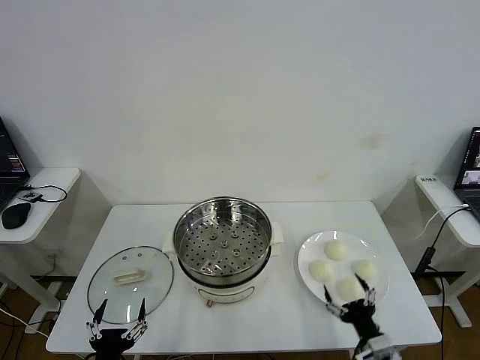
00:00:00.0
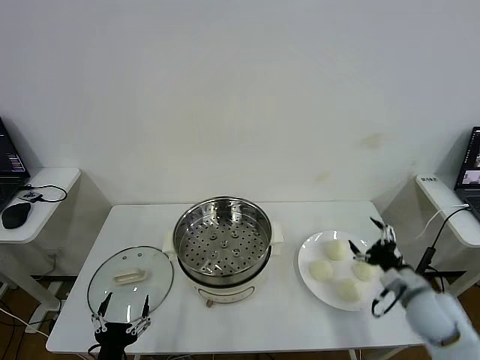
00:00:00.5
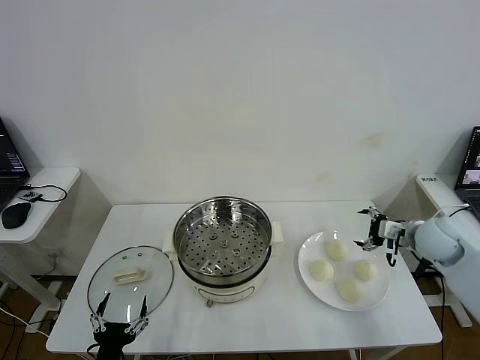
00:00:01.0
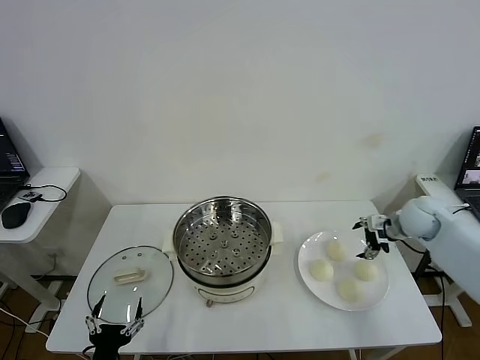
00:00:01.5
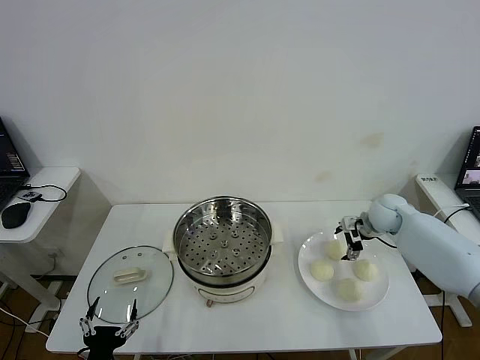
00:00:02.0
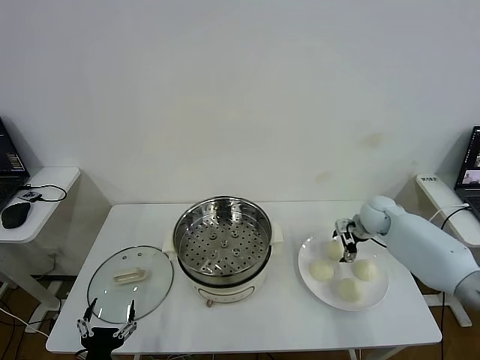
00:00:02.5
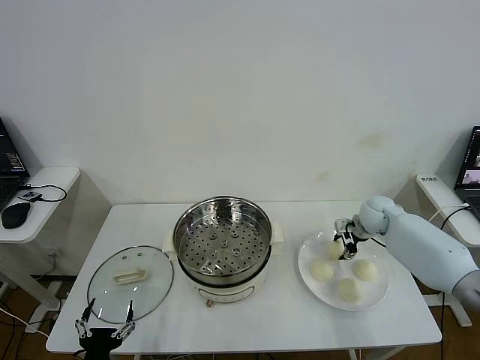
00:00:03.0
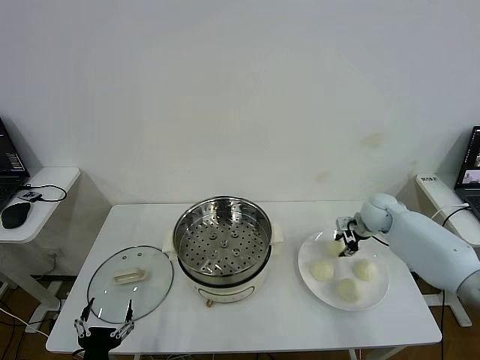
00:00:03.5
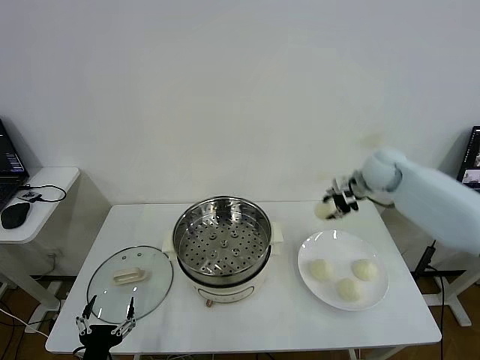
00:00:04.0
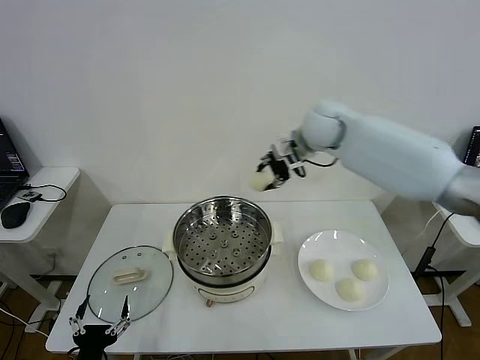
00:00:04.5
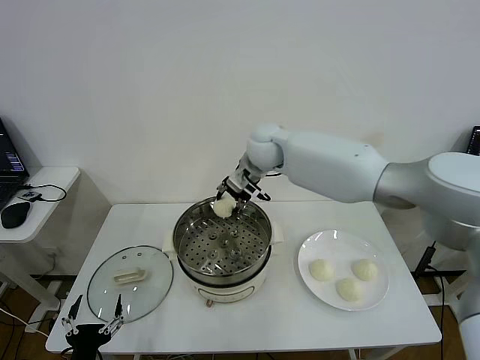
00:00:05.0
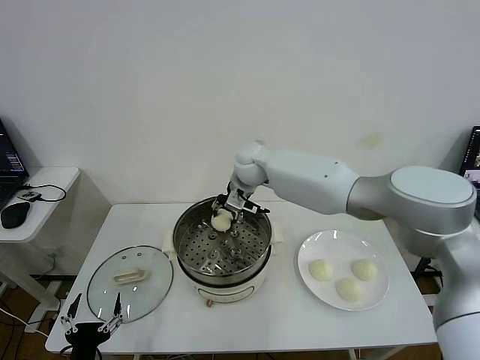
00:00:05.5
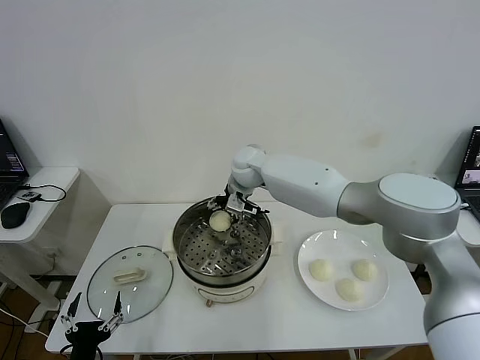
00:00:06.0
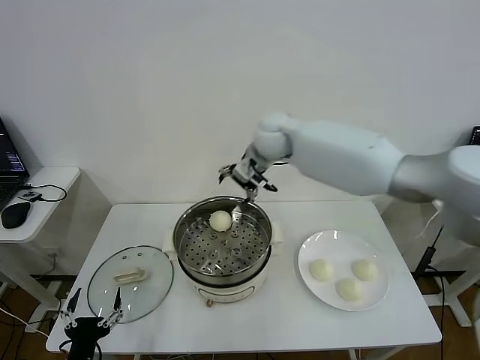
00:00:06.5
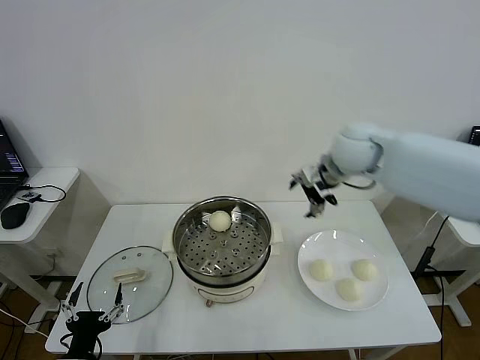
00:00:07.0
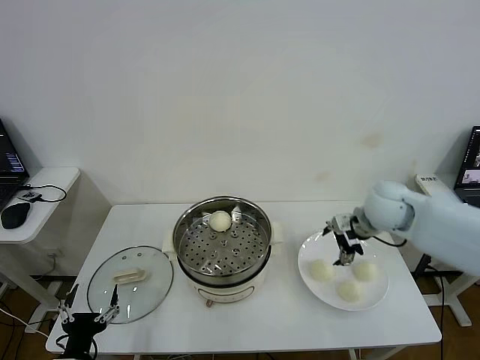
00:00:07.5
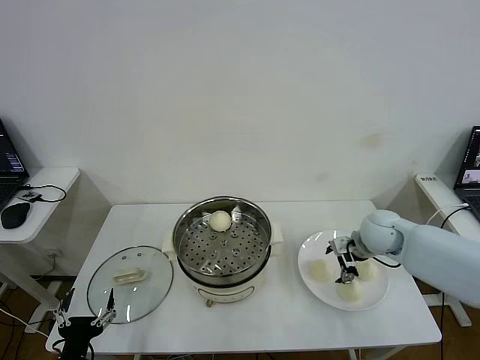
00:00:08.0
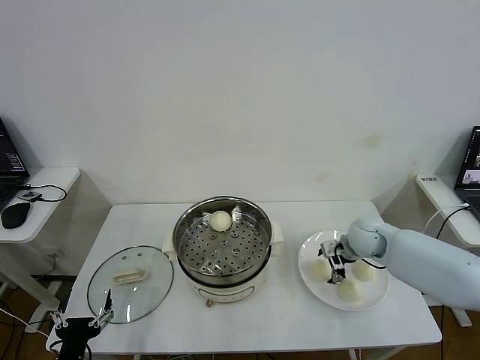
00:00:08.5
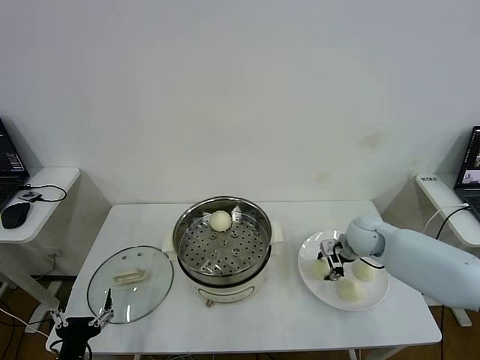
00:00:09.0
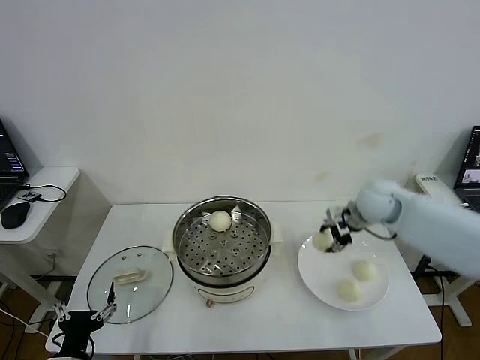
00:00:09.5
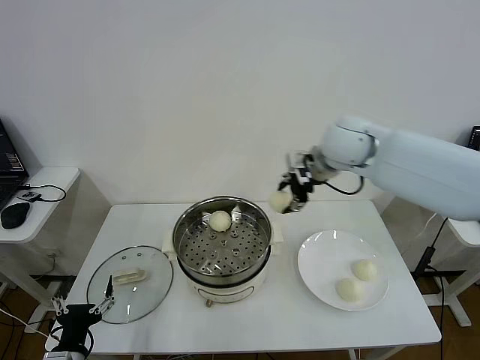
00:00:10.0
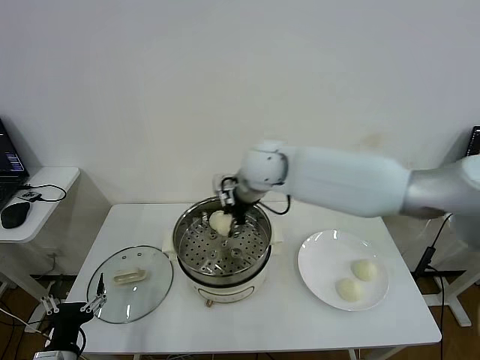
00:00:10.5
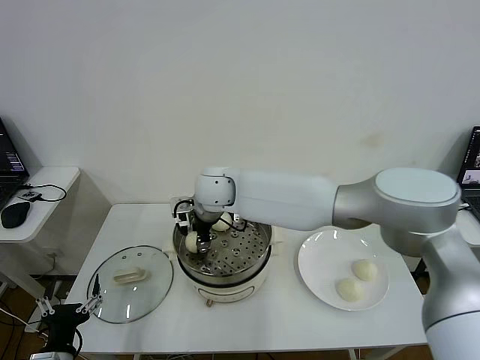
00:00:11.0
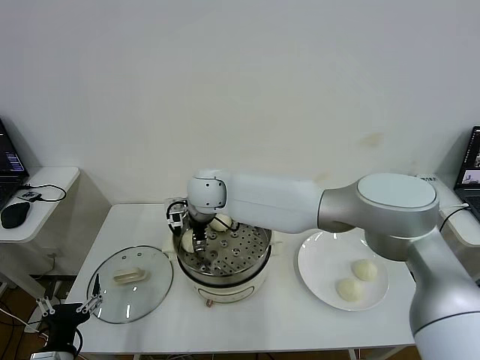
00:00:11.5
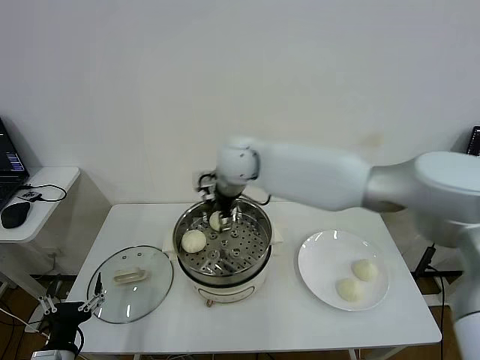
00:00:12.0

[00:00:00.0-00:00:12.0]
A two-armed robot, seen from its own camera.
Step, 00:00:00.0 to 00:00:03.0: Grasp the baozi in the plate with right gripper.
Step, 00:00:03.5 to 00:00:06.0: Place the baozi on the steamer with right gripper.
Step, 00:00:06.5 to 00:00:08.5: Grasp the baozi in the plate with right gripper.
Step, 00:00:09.5 to 00:00:11.5: Place the baozi on the steamer with right gripper.
00:00:02.0 to 00:00:04.0: The right gripper moves upward and to the left, about 20 cm, and closes up.
00:00:04.0 to 00:00:06.0: The right gripper shifts some 30 cm to the left, and opens.
00:00:06.0 to 00:00:08.0: The right gripper goes some 30 cm to the right and backward.
00:00:08.0 to 00:00:10.0: The right gripper is displaced upward and to the left by approximately 25 cm, and closes up.
00:00:10.0 to 00:00:12.0: The right gripper moves to the left, approximately 15 cm, and opens.

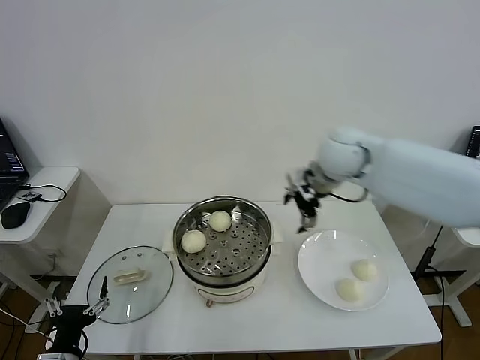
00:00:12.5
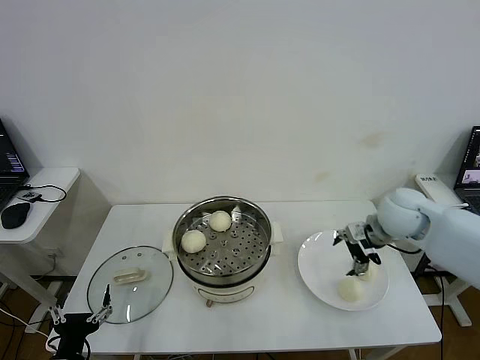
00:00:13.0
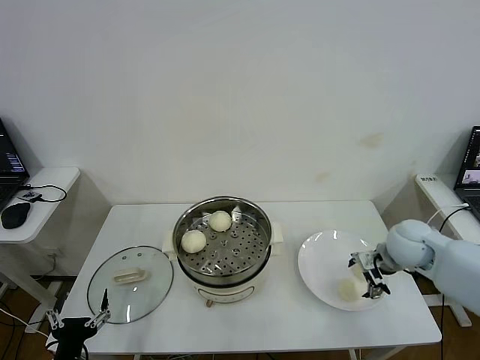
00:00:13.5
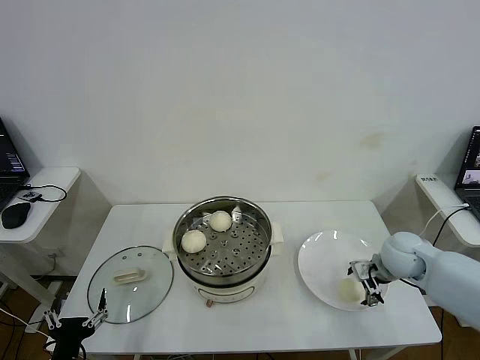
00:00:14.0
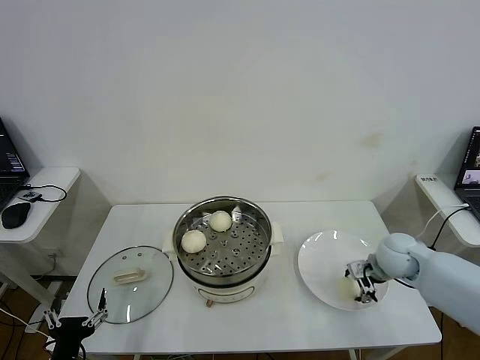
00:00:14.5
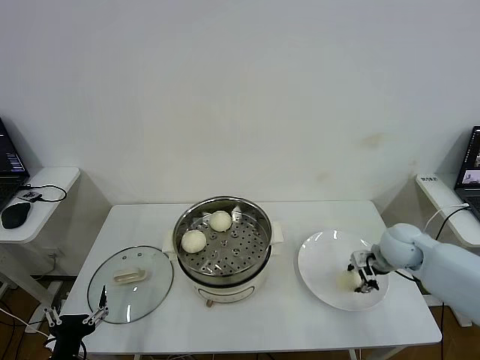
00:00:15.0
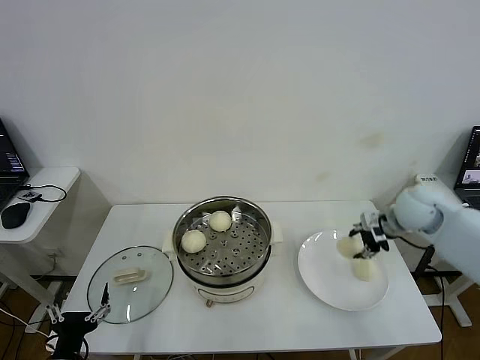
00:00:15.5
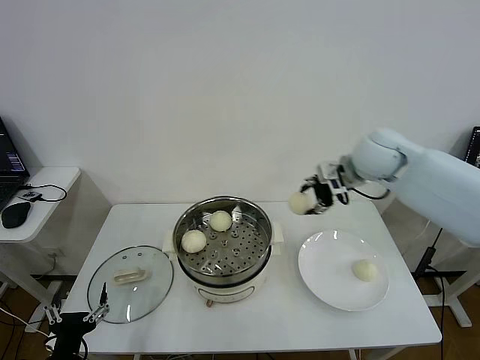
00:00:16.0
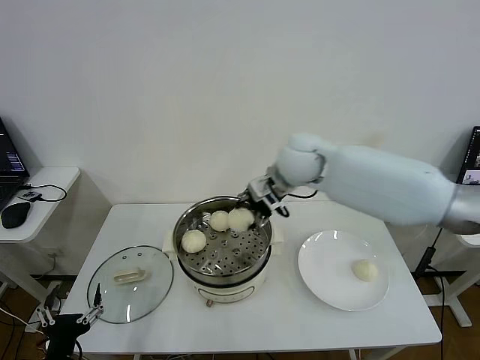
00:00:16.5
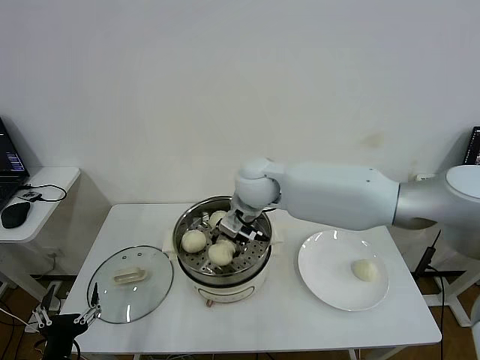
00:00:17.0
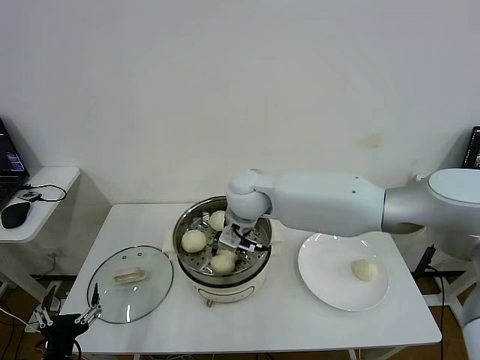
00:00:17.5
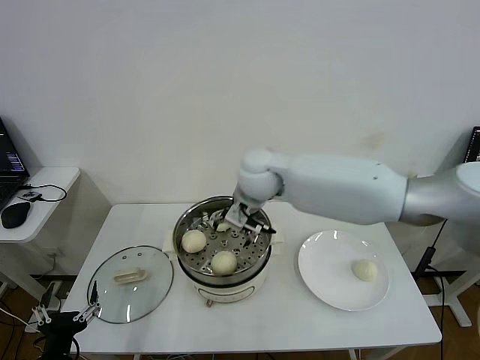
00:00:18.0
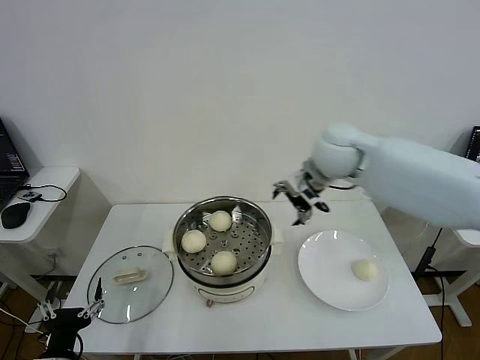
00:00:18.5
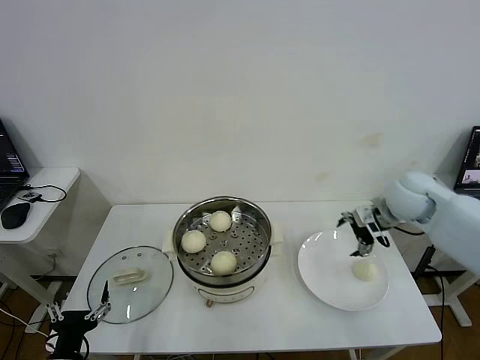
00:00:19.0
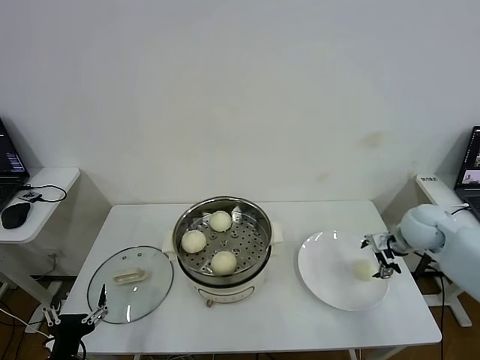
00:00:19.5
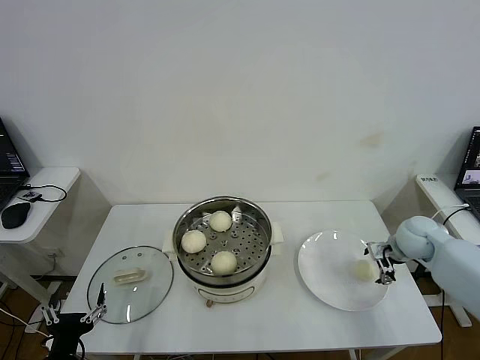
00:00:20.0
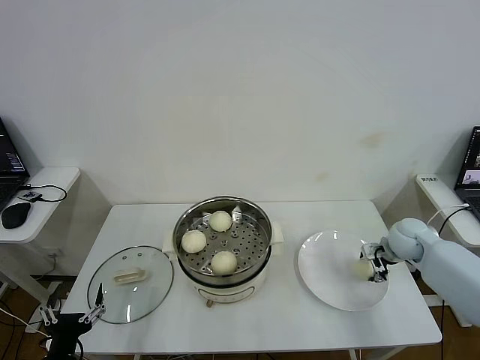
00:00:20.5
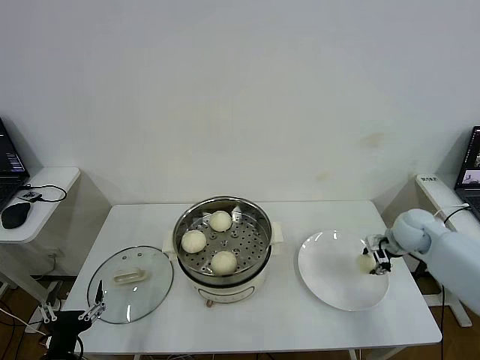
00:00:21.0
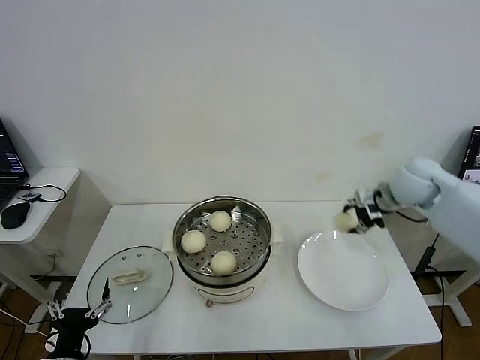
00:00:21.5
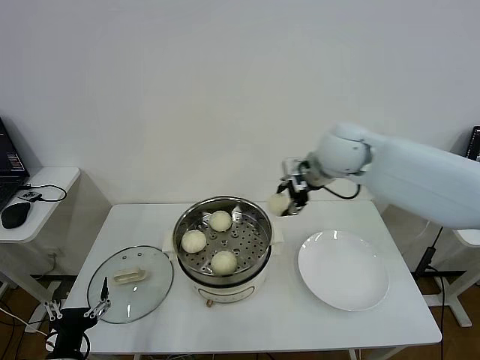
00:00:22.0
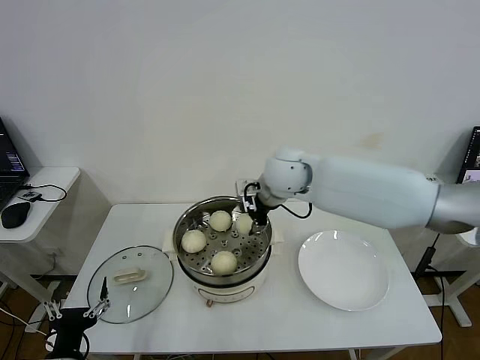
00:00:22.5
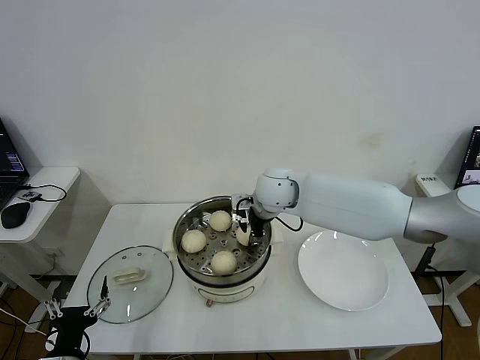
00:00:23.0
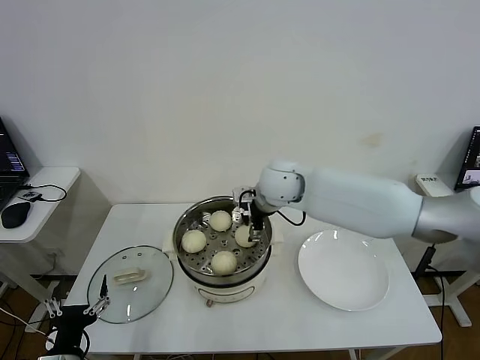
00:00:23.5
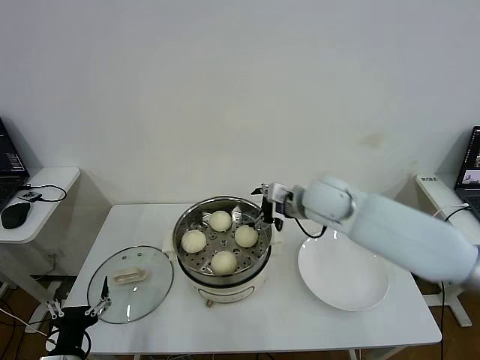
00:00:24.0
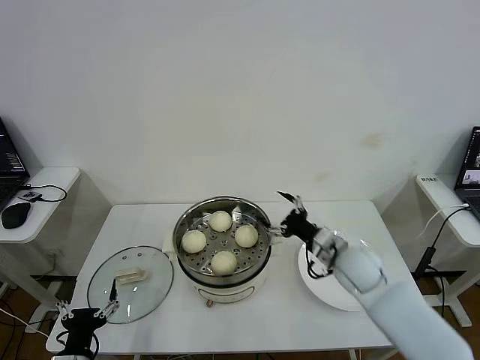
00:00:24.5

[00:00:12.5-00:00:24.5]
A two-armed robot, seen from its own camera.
Step, 00:00:12.5 to 00:00:14.5: Grasp the baozi in the plate with right gripper.
Step, 00:00:15.0 to 00:00:17.5: Place the baozi on the steamer with right gripper.
Step, 00:00:18.0 to 00:00:20.5: Grasp the baozi in the plate with right gripper.
Step, 00:00:21.0 to 00:00:23.0: Place the baozi on the steamer with right gripper.
00:00:12.5 to 00:00:14.5: The right gripper shifts roughly 25 cm downward and to the right, and closes its fingers.
00:00:14.5 to 00:00:16.5: The right gripper travels to the left and upward by about 30 cm.
00:00:16.5 to 00:00:18.5: The right gripper shifts about 10 cm to the right, and opens up.
00:00:18.5 to 00:00:20.5: The right gripper is displaced downward and to the right by about 30 cm, and closes.
00:00:20.5 to 00:00:22.5: The right gripper is displaced to the left and upward by some 35 cm.
00:00:22.5 to 00:00:24.5: The right gripper moves downward, to the right and backward, some 25 cm, and opens up.

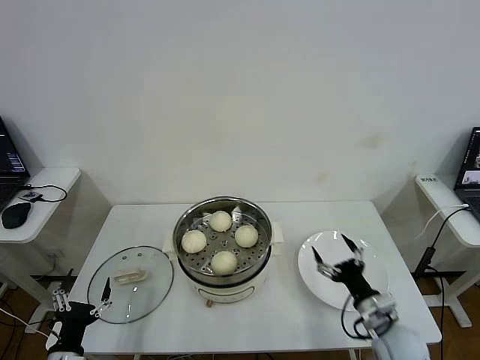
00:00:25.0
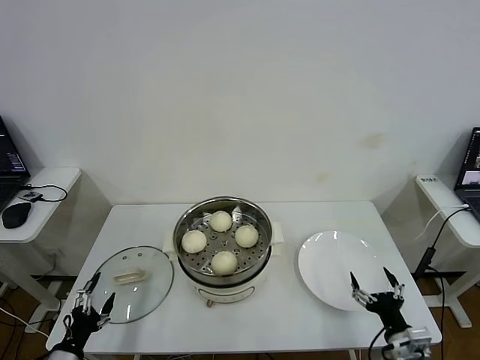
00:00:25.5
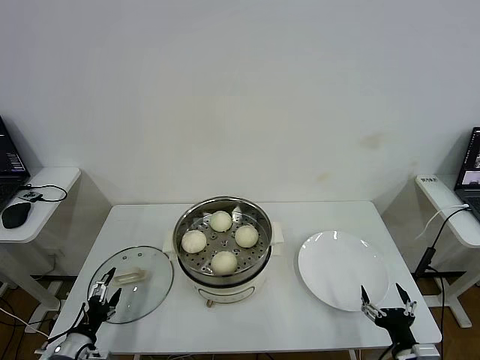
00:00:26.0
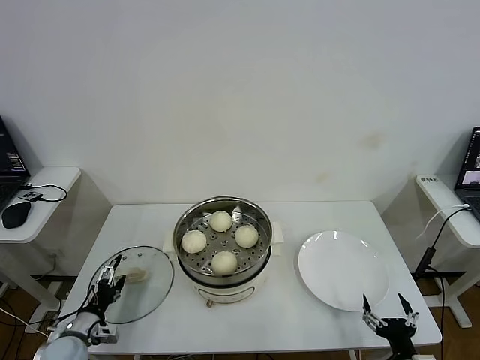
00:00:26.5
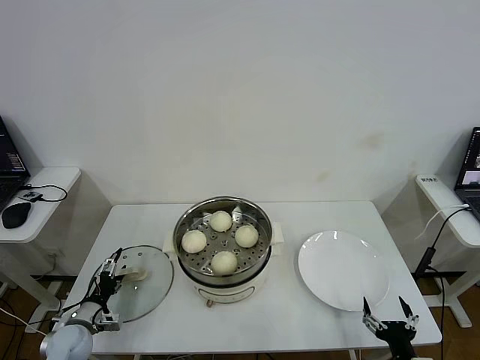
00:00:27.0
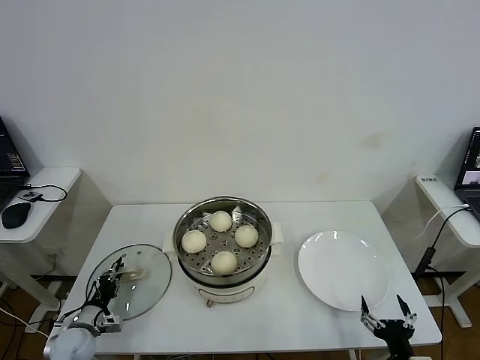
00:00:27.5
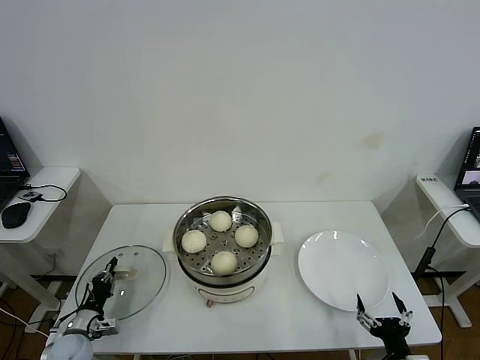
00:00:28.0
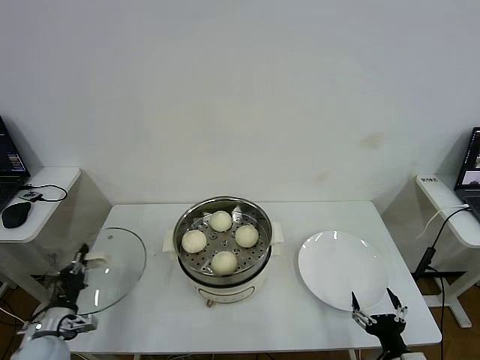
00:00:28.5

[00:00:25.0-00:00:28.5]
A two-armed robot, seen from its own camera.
Step, 00:00:25.0 to 00:00:27.5: Grasp the pot lid with left gripper.
00:00:25.0 to 00:00:27.0: The left gripper is displaced forward and downward by roughly 15 cm. Meanwhile the right gripper heads backward, covering about 15 cm.
00:00:27.0 to 00:00:28.5: The left gripper ends up approximately 5 cm from where it was, and closes its fingers.
